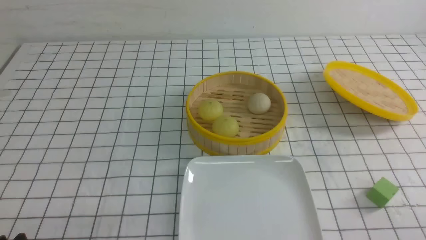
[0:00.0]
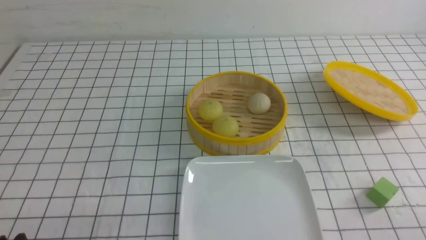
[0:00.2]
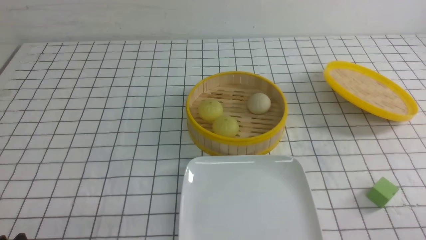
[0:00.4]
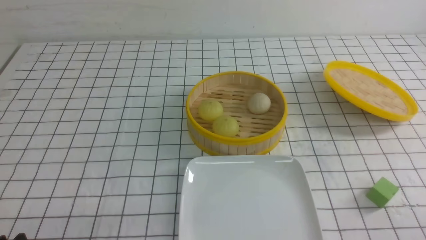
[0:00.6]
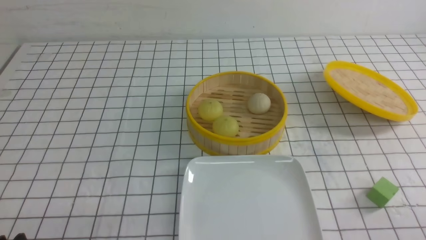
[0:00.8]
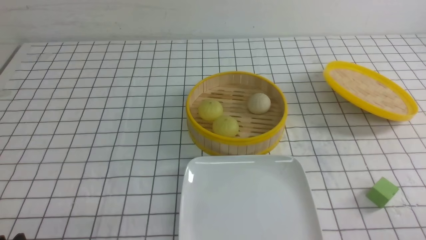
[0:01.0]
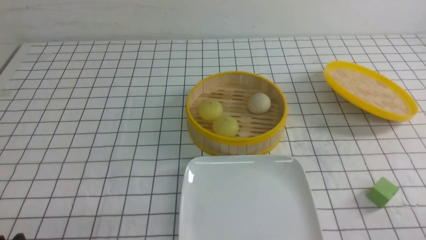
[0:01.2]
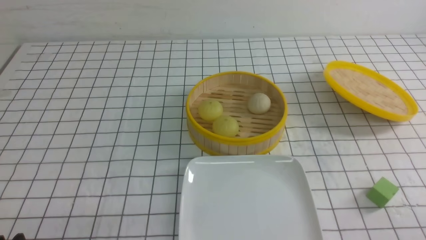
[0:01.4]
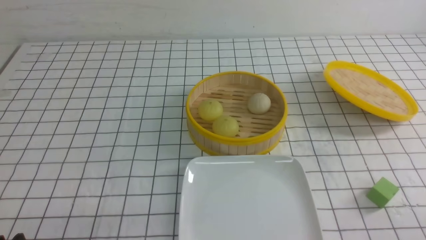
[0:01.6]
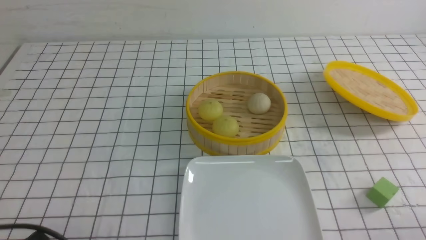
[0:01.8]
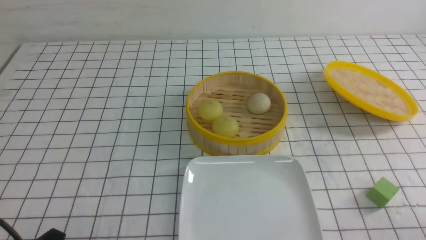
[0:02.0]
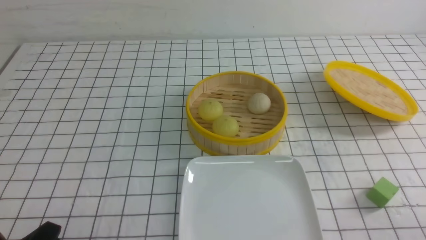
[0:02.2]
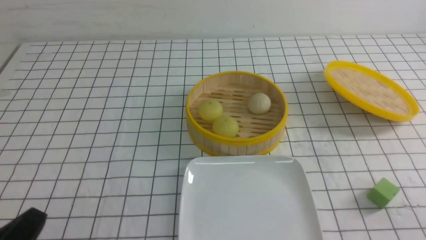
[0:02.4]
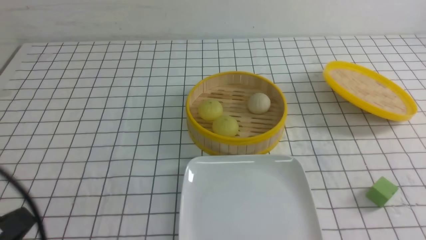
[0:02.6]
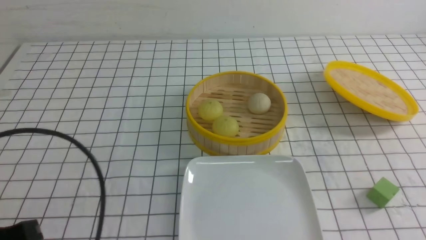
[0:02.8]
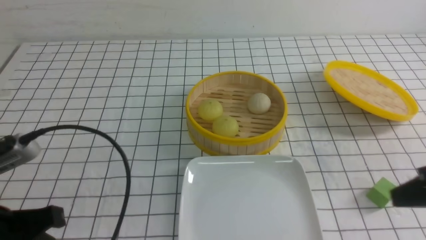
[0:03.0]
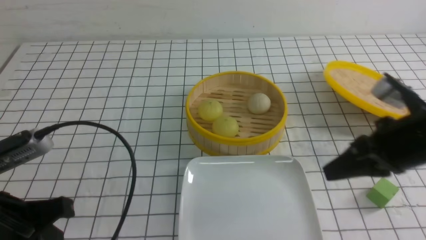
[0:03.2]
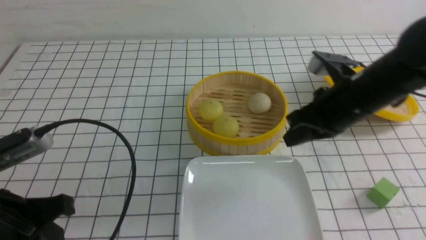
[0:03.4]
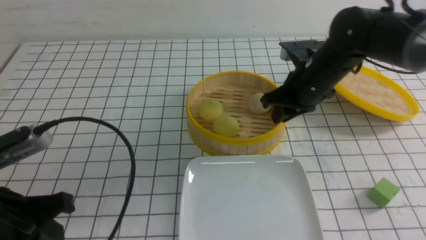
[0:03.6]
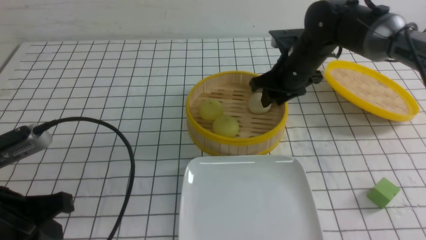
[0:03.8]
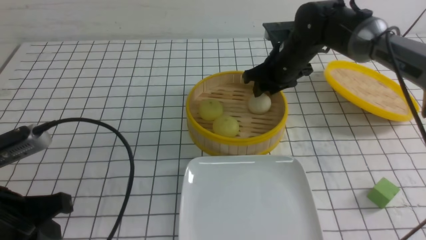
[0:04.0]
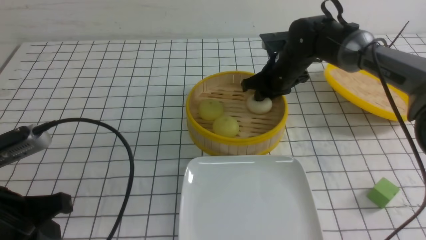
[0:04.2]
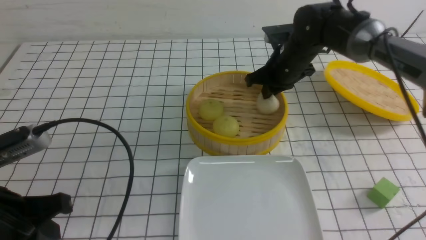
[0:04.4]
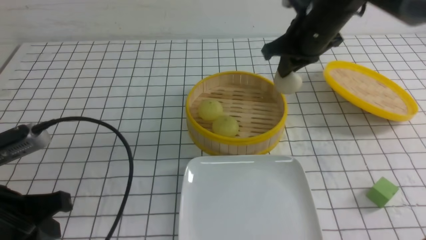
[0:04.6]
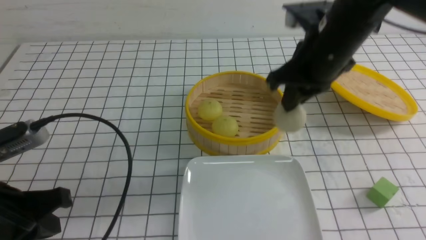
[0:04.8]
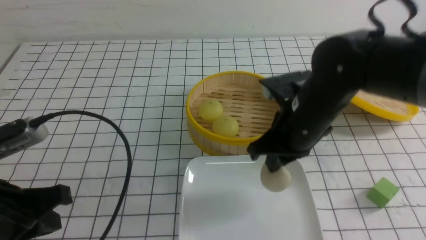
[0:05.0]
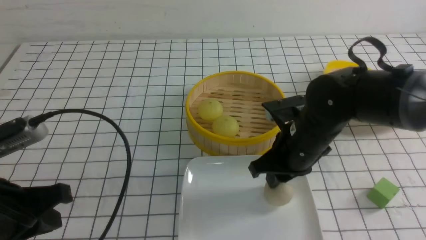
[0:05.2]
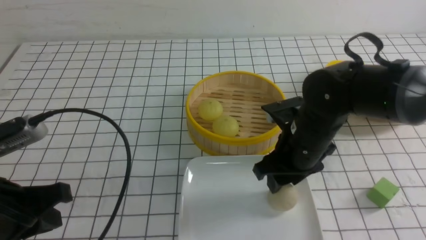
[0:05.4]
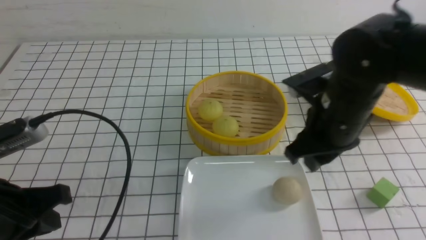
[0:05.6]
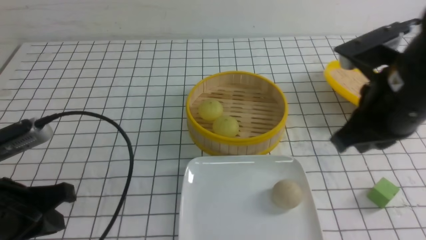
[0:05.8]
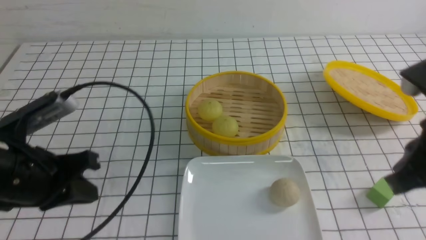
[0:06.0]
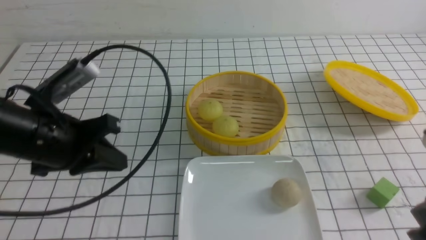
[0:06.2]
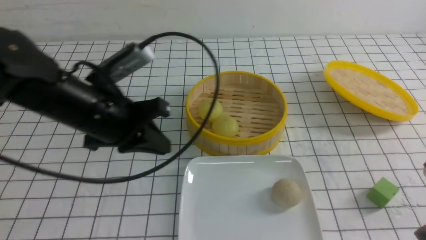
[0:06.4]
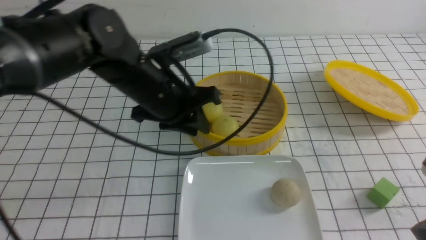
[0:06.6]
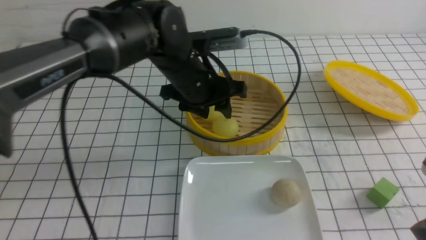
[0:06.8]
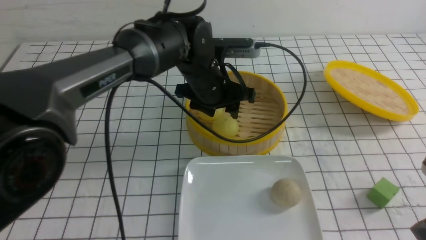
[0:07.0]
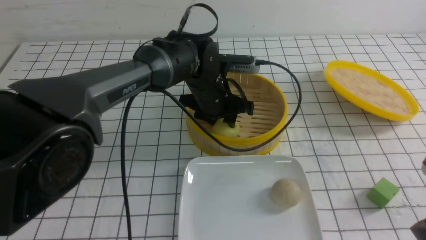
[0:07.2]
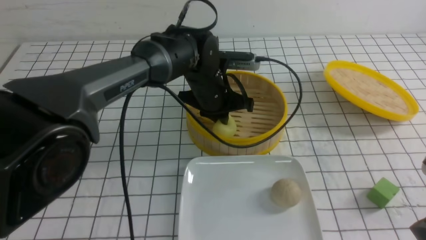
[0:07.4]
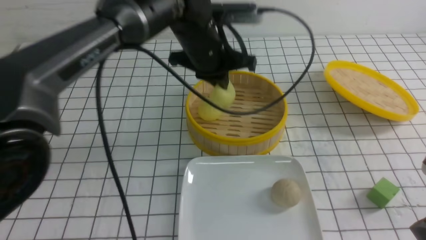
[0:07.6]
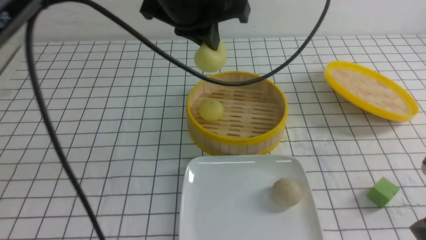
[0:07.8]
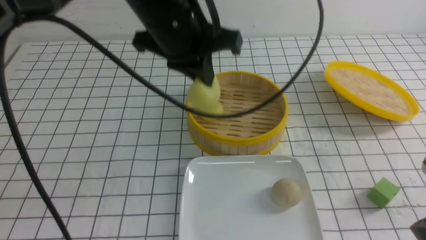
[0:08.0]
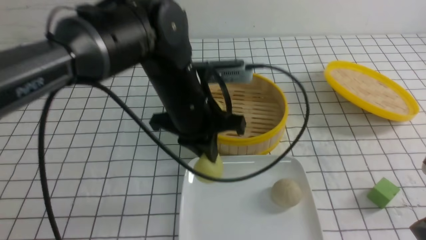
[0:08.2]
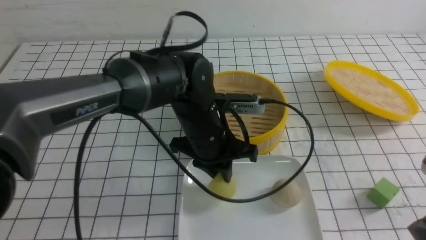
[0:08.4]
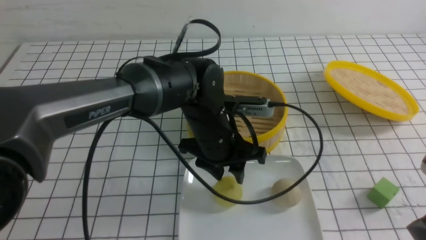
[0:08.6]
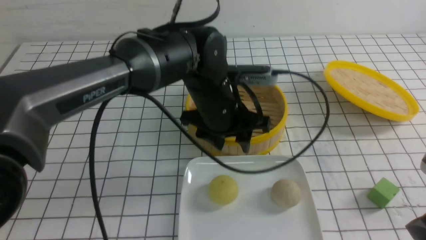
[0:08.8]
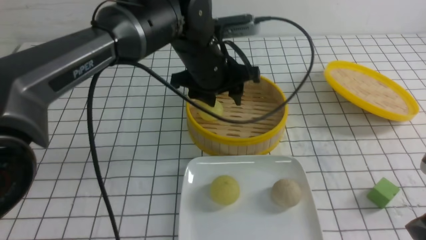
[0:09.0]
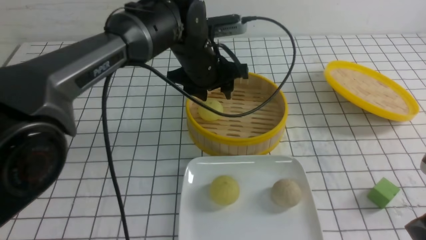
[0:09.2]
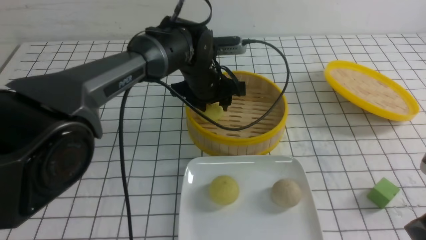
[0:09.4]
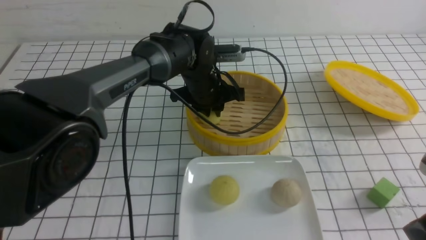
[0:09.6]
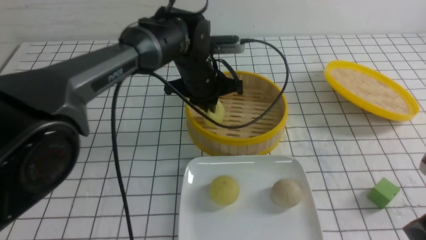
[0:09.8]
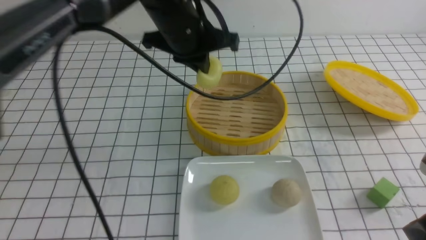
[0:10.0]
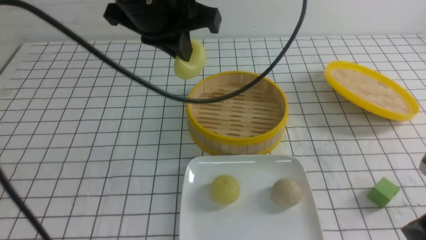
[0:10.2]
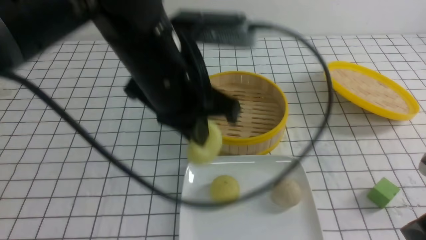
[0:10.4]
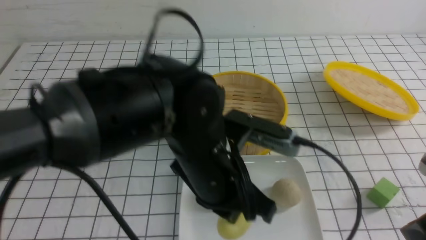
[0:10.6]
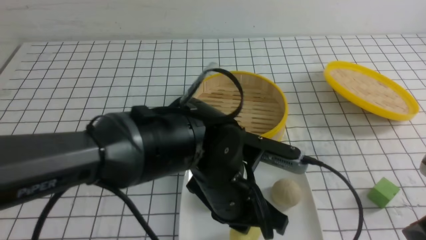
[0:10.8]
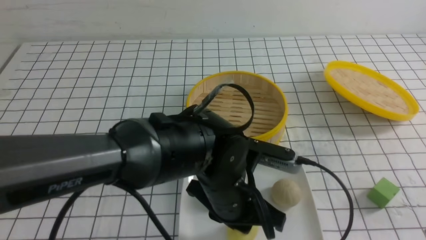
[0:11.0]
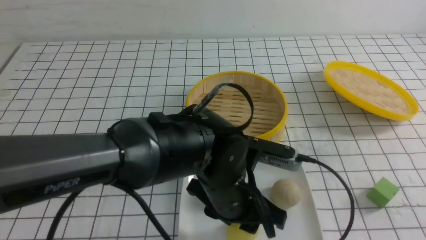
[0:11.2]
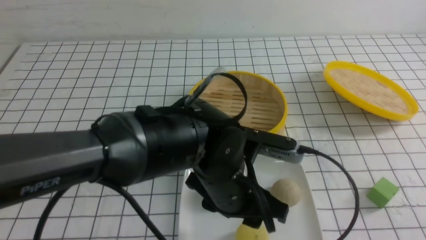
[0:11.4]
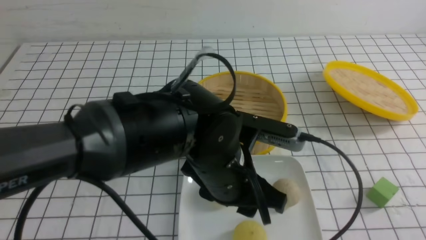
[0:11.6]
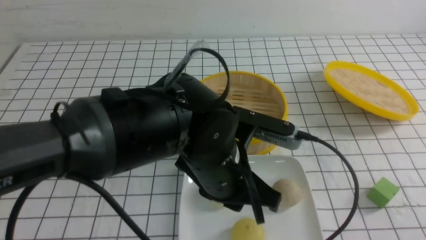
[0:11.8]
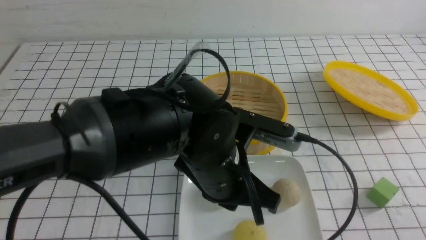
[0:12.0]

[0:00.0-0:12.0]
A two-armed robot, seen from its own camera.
Step, 0:00.0 to 0:04.4: use the right arm to grab the steamed stuffed bun that is closest to it.
Step, 0:04.6 to 0:05.4: use the right arm to put the steamed stuffed bun into the plate.
Step, 0:05.6 to 0:07.4: use the left arm to grab the steamed stuffed bun that is closest to it.
Step, 0:07.6 to 0:08.6: use the left arm to put the steamed stuffed bun into the plate.
Step, 0:09.0 to 0:09.8: use the left arm to grab the steamed stuffed bun that is closest to it.
Step, 0:10.0 to 0:11.4: use the left arm to put the steamed stuffed bun into the plate.
0:01.6 to 0:03.0: The two grippers go approximately 15 cm upward and forward. The right gripper closes its fingers. Meanwhile the left gripper closes.
0:03.0 to 0:04.4: The right gripper moves forward and to the left, roughly 30 cm, and opens and closes again.
0:04.4 to 0:06.0: The right gripper heads backward, covering some 30 cm, and opens and closes again; the left gripper travels forward by some 5 cm.
0:06.0 to 0:07.6: The left gripper shifts some 25 cm to the right and forward, and opens, then closes again, while the right gripper travels downward by approximately 5 cm.
0:07.6 to 0:09.0: The left gripper swings up and down, approximately 15 cm each way, with 2 reversals, and opens up.
0:09.0 to 0:10.4: The left gripper goes approximately 15 cm backward and upward, and closes.
0:10.4 to 0:12.0: The left gripper is displaced downward by approximately 10 cm, and opens, then closes again. Meanwhile the right gripper is displaced backward and to the right by approximately 15 cm.

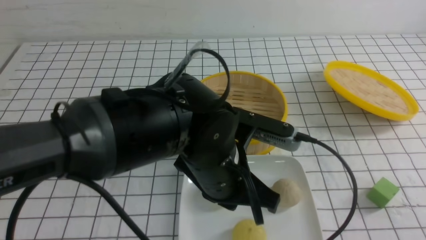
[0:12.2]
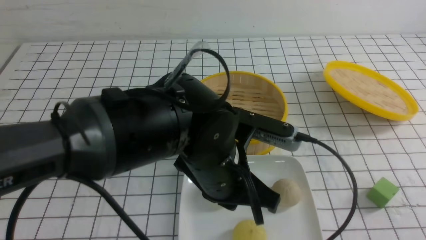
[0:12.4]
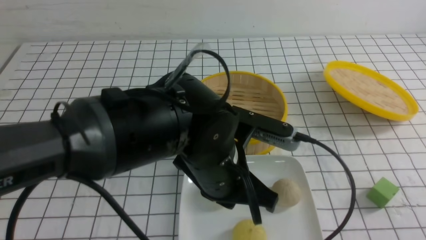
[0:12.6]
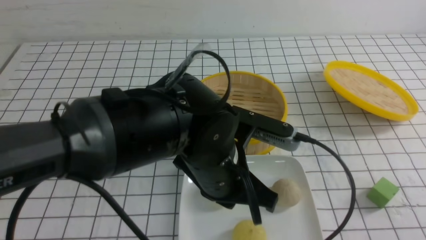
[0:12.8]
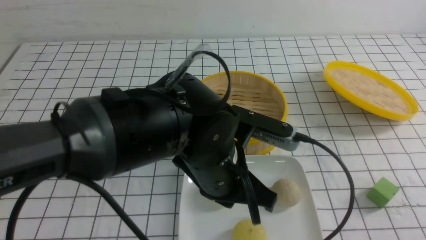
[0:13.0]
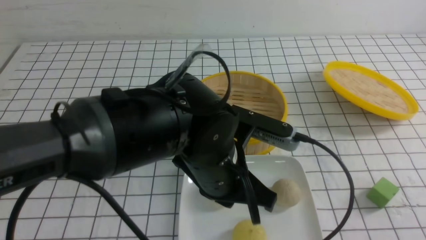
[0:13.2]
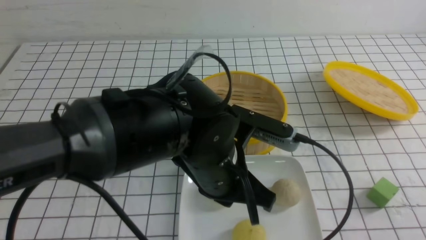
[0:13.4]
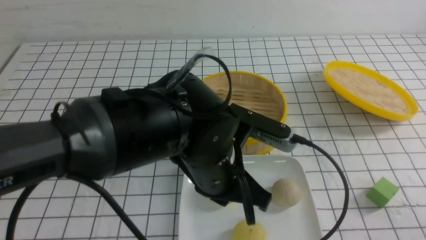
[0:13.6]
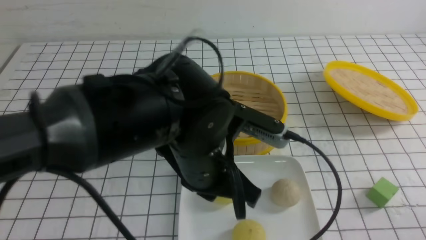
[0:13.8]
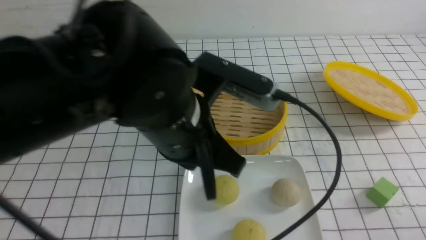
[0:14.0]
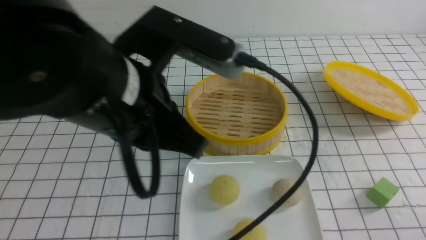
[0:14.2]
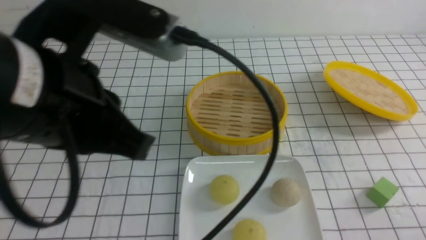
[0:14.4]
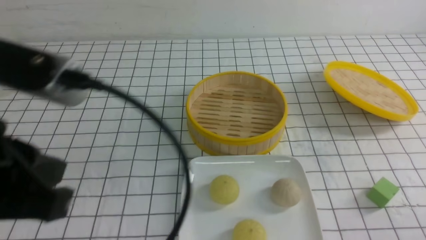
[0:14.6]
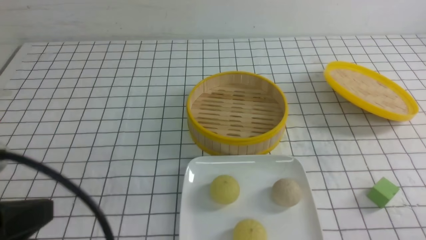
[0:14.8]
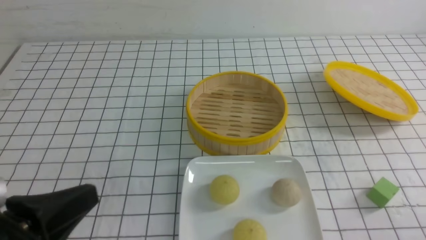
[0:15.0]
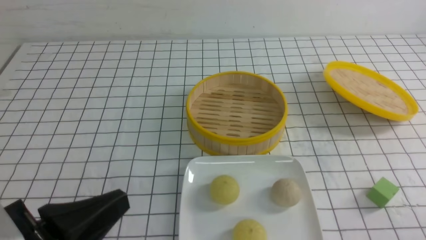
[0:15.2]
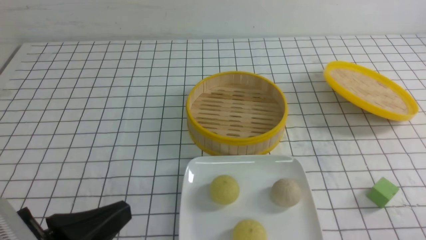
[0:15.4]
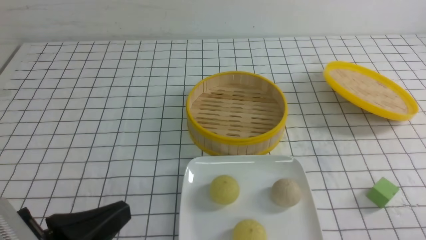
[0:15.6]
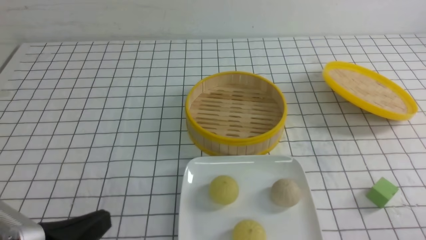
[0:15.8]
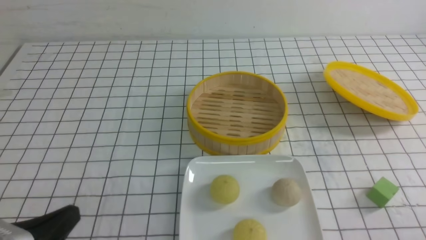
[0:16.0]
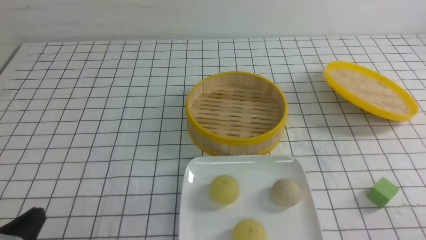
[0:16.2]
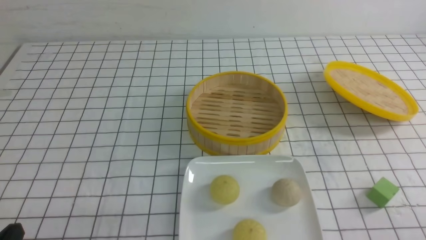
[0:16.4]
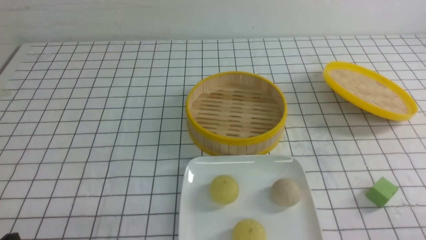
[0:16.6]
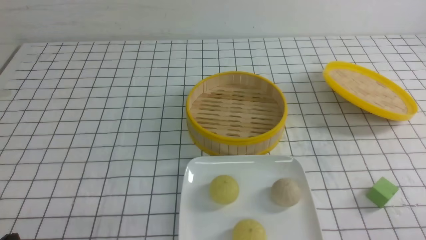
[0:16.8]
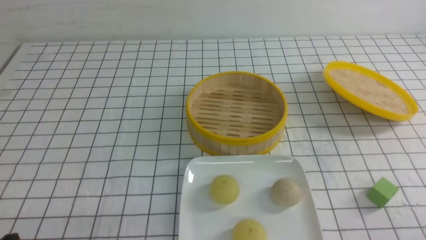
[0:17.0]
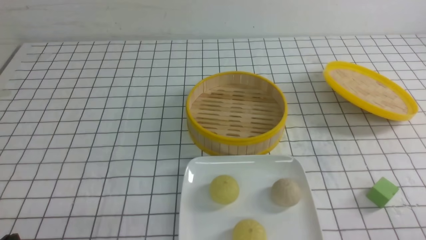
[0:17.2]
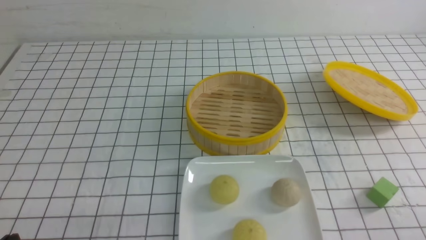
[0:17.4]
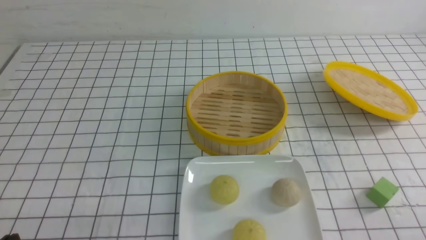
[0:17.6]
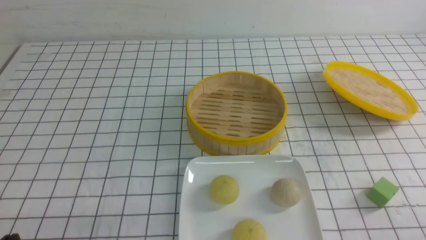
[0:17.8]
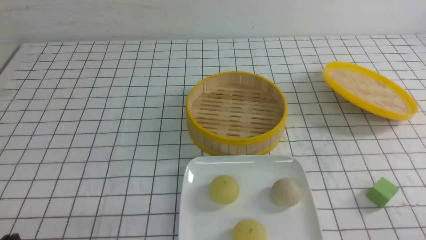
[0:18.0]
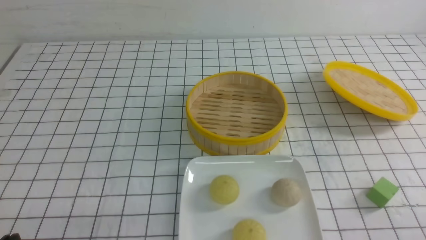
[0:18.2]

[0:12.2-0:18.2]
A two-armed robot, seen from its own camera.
0:12.2 to 0:13.8: The right gripper heads downward, covering about 10 cm.
0:13.8 to 0:15.2: The left gripper shifts some 20 cm to the left and backward.
0:15.2 to 0:16.6: The left gripper is displaced downward and to the left by some 10 cm.
0:16.6 to 0:18.2: The two grippers keep their place.
